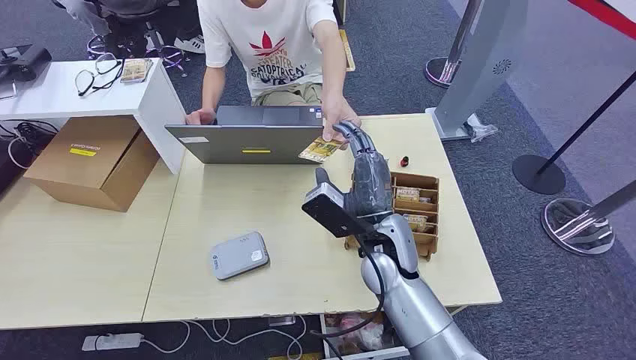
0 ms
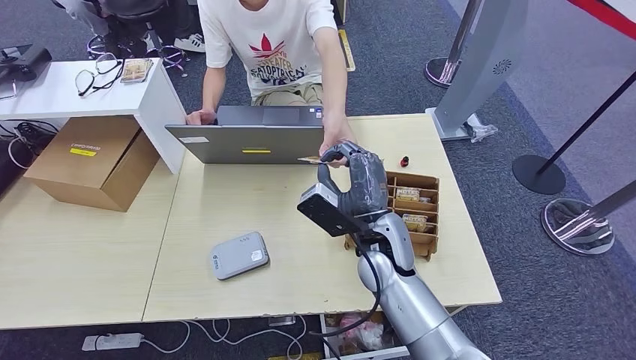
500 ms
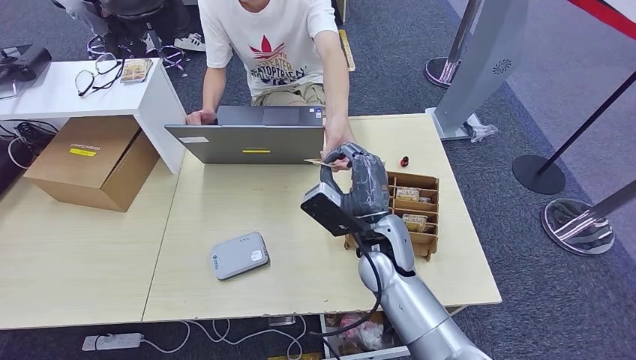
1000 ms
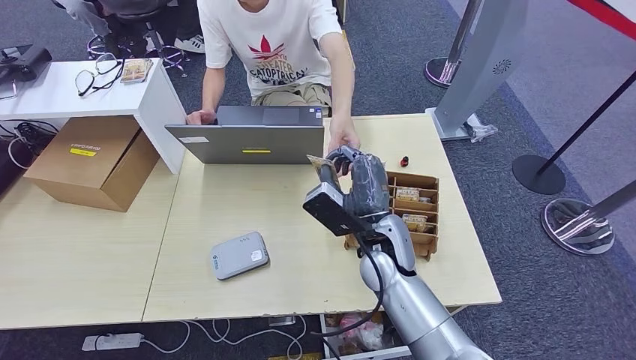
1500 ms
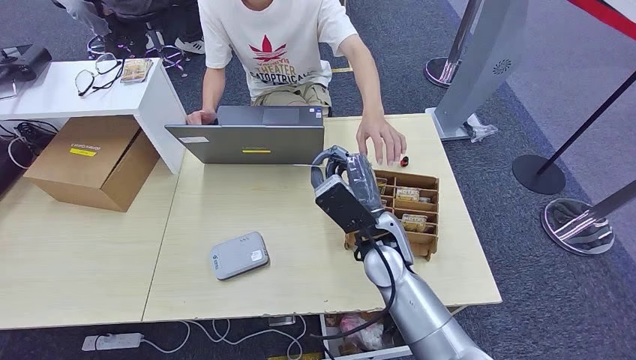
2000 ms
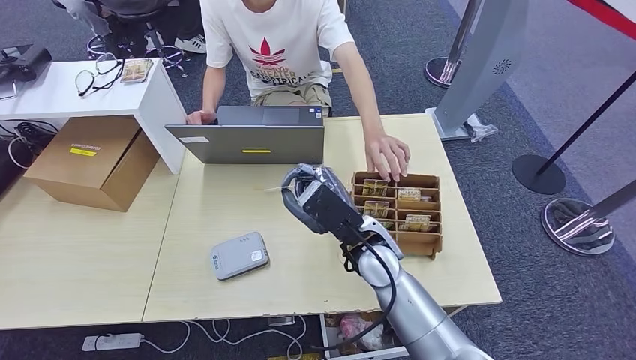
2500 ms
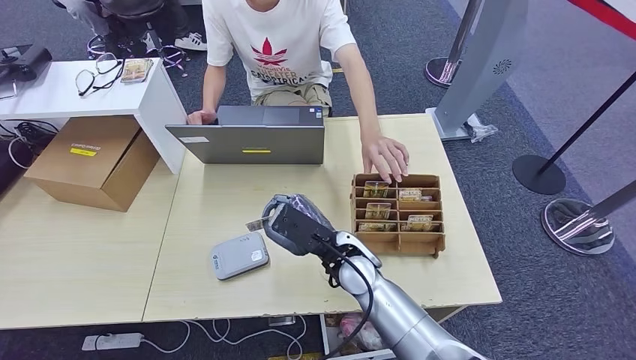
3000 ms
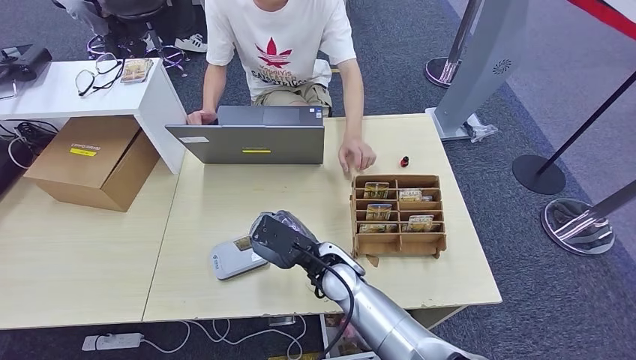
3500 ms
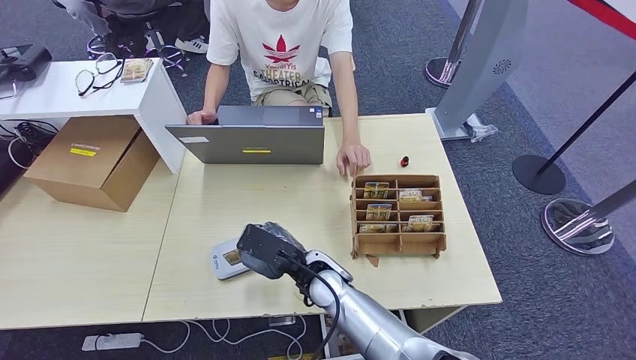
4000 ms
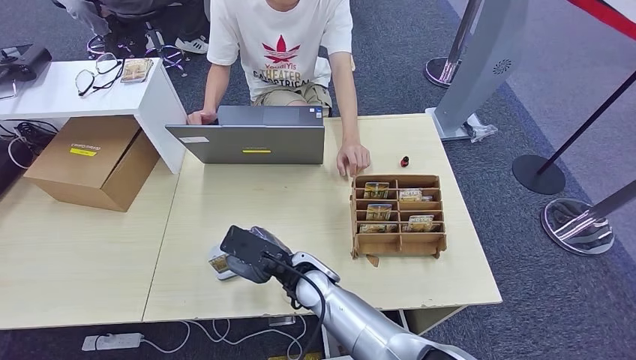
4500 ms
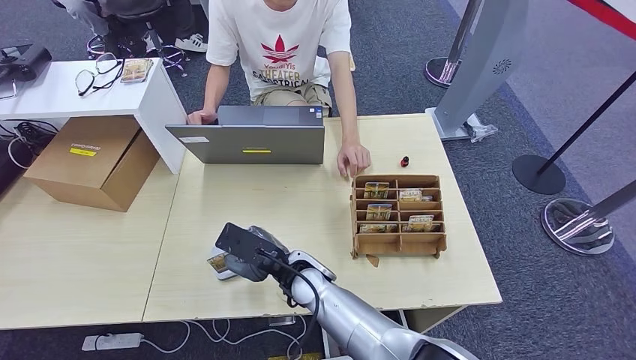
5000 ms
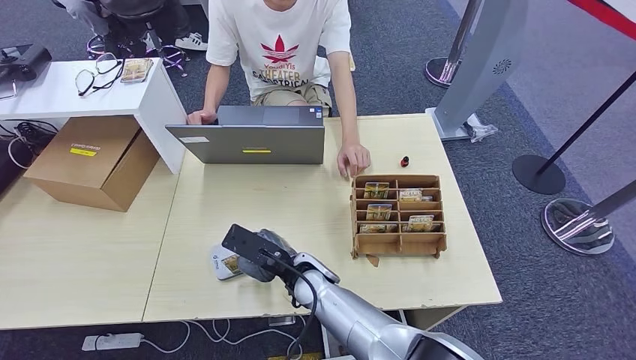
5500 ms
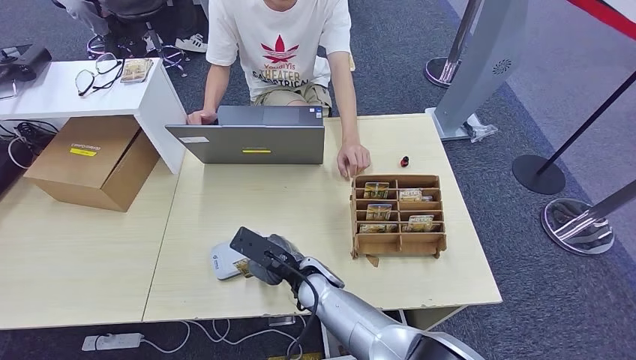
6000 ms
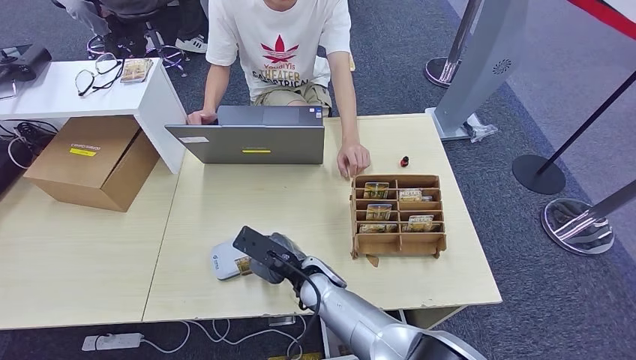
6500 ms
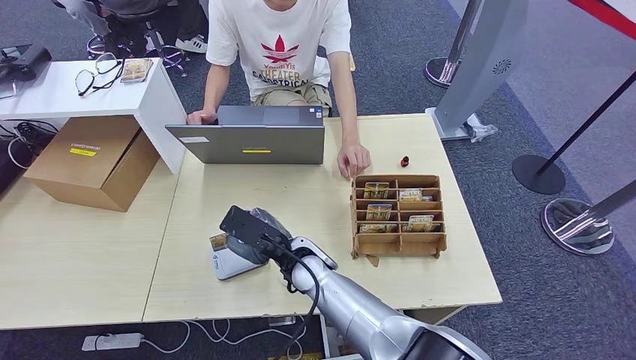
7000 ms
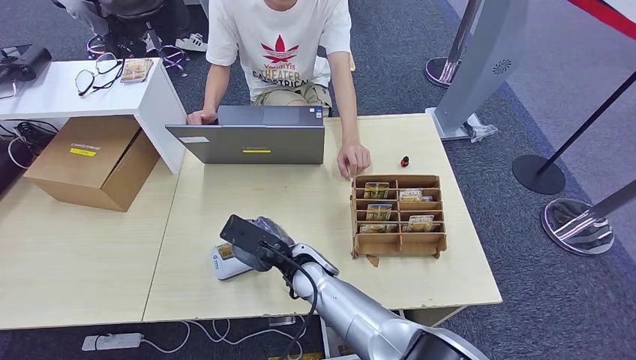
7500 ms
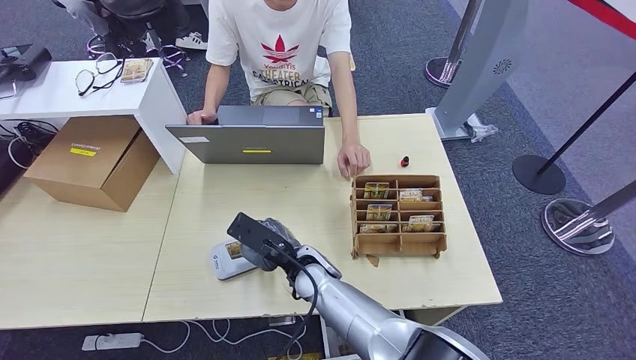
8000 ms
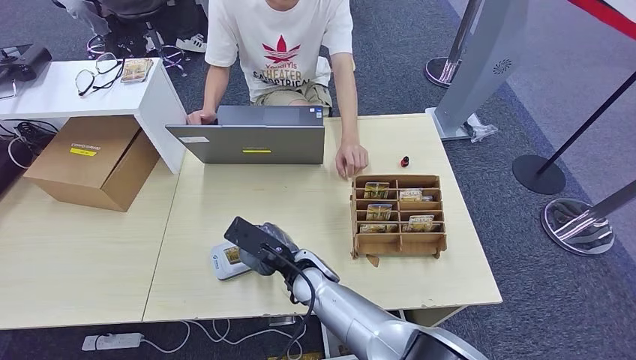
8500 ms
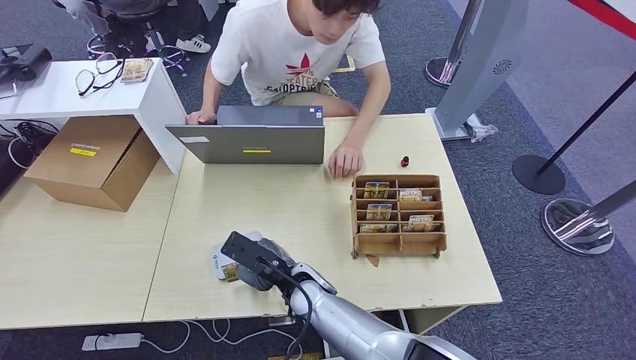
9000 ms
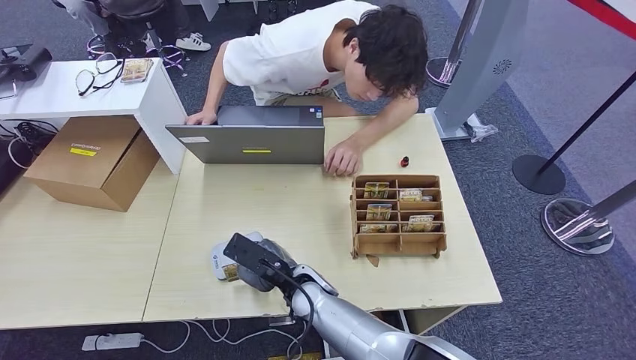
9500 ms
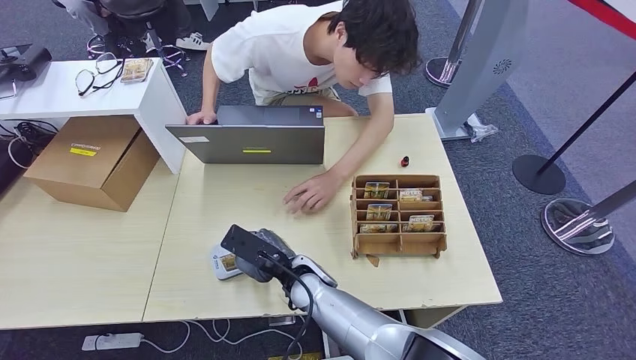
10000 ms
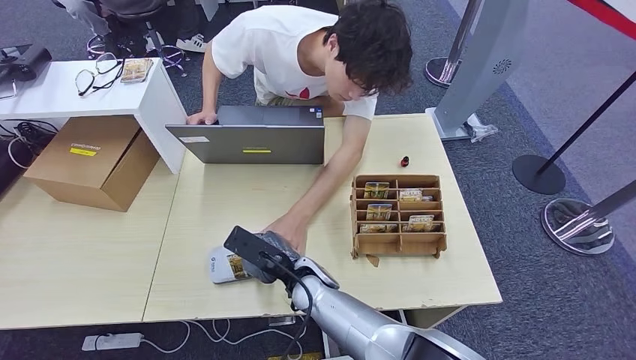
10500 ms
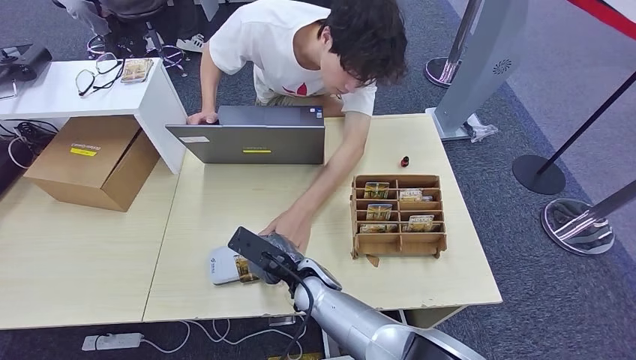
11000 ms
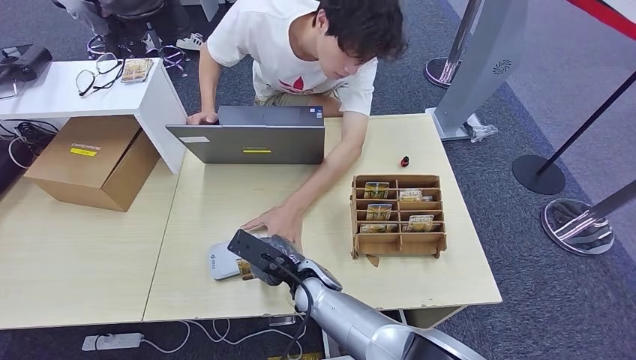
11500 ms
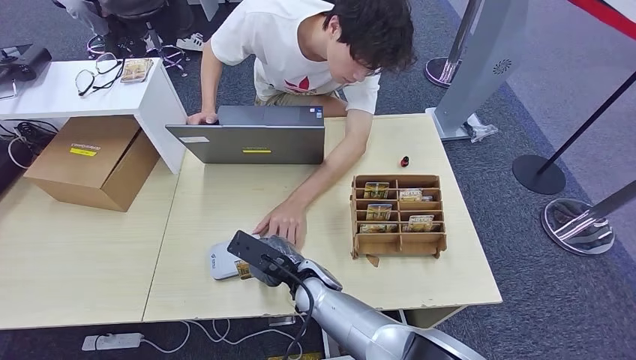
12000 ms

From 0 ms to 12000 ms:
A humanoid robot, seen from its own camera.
Step, from 0 ms to 1500 ms: Take the ID card from the person's hand.
Step, from 2000 ms to 12000 ms: Place the ID card on the card reader.
From 2000 ms to 4000 ms: The right hand moves to the left and downward, approximately 10 cm.
From 4000 ms to 10000 ms: The hands move only a little.
From 10000 ms to 12000 ms: The hands stay close to where they were, moving slightly.

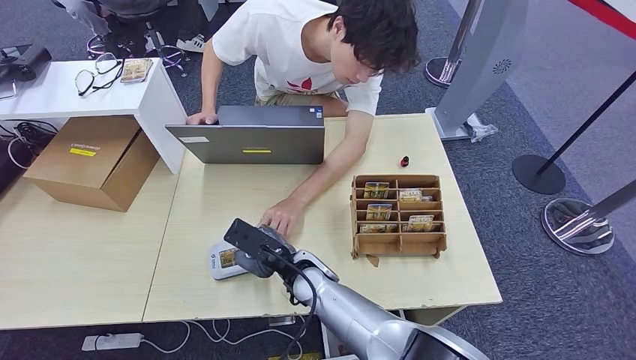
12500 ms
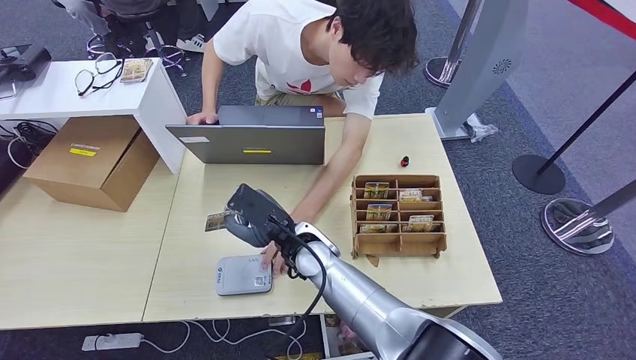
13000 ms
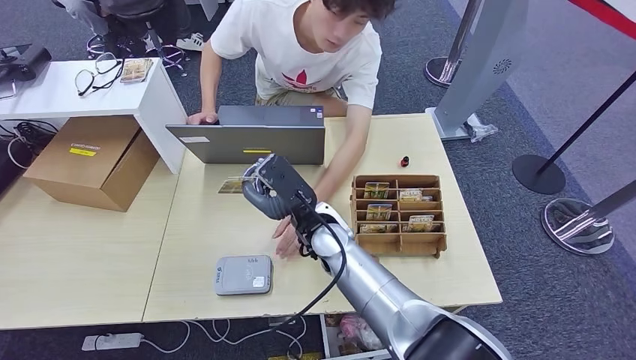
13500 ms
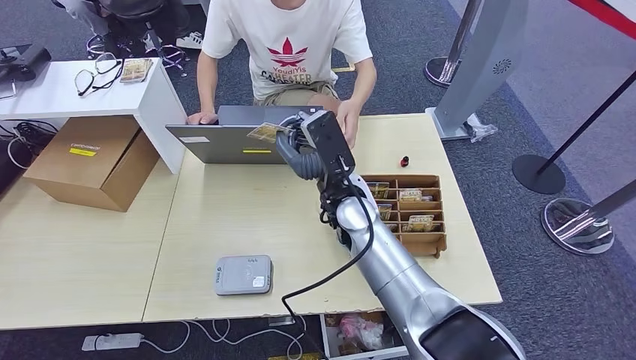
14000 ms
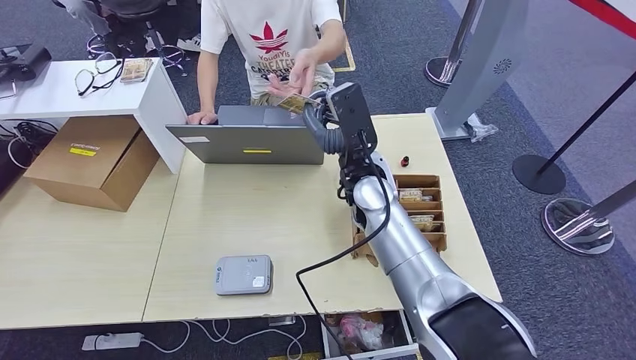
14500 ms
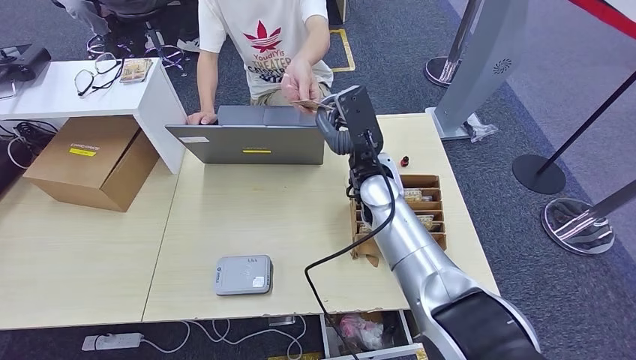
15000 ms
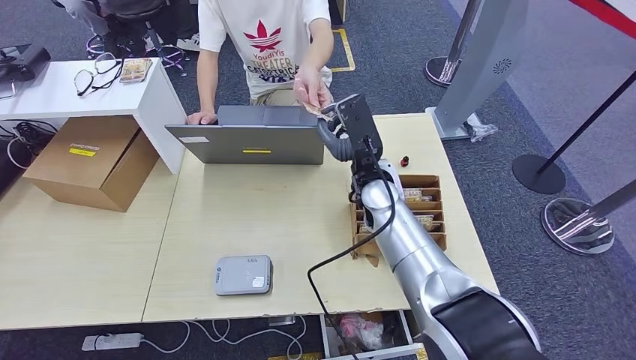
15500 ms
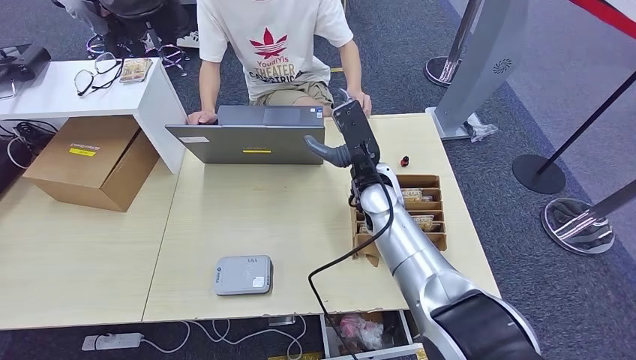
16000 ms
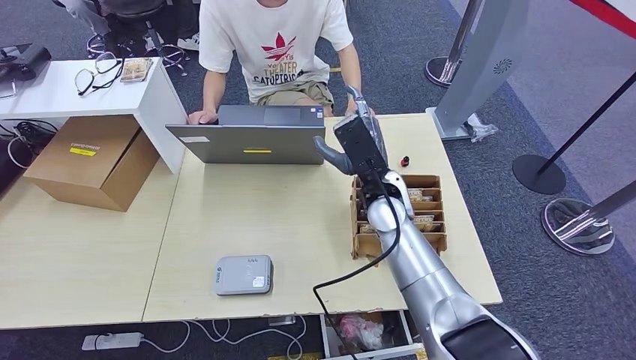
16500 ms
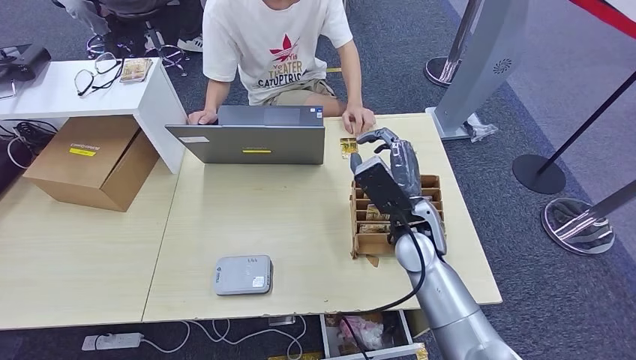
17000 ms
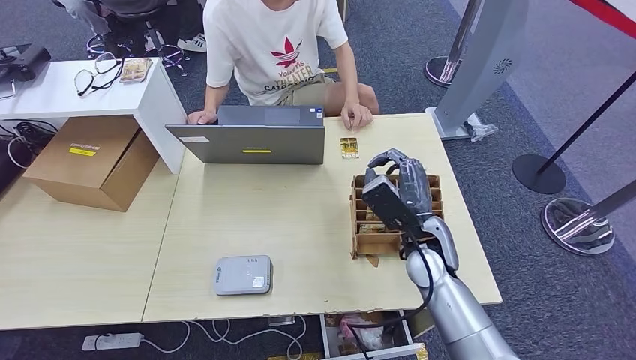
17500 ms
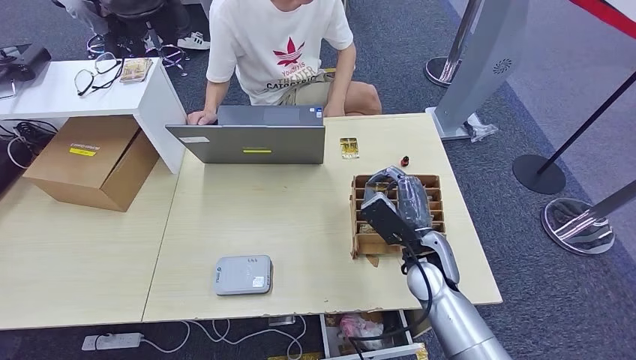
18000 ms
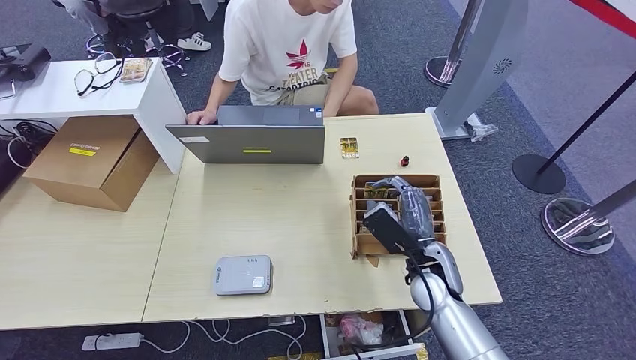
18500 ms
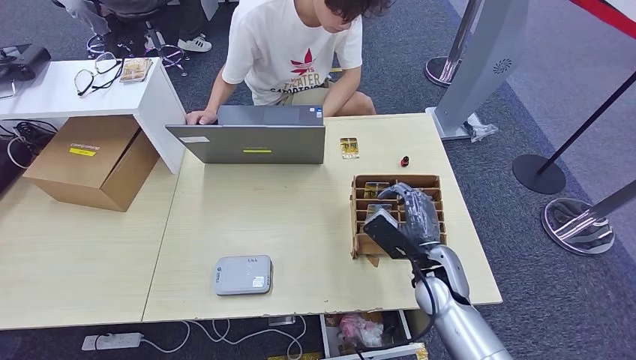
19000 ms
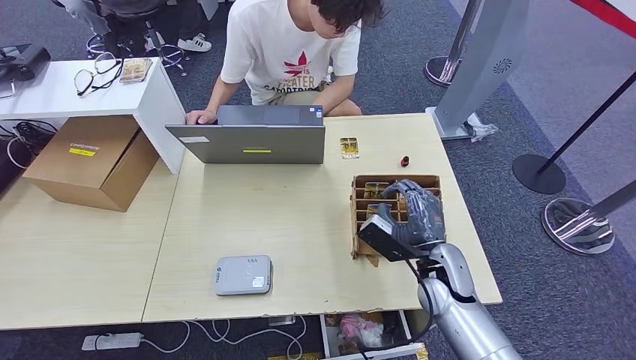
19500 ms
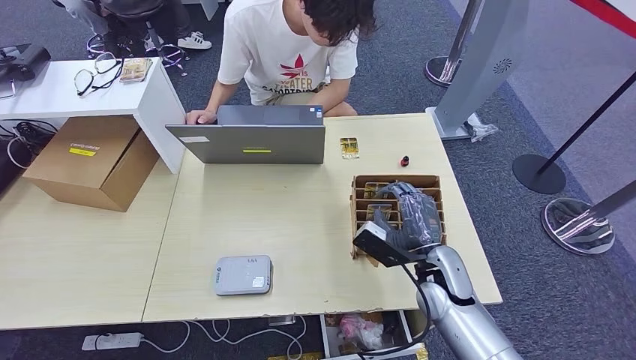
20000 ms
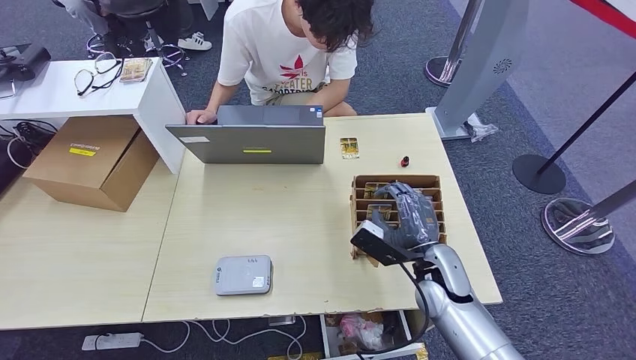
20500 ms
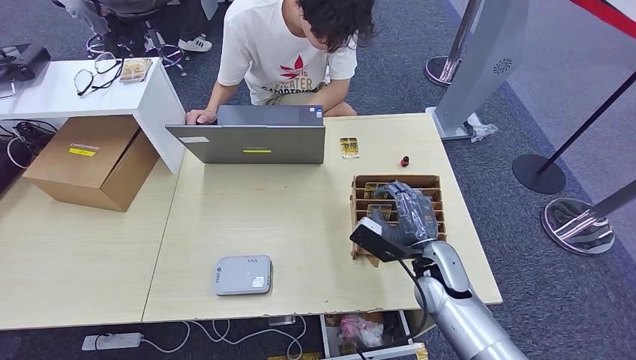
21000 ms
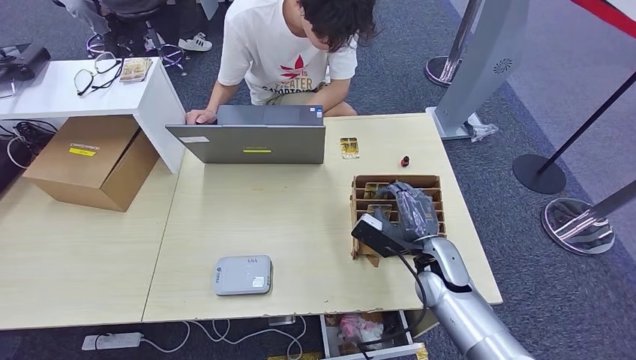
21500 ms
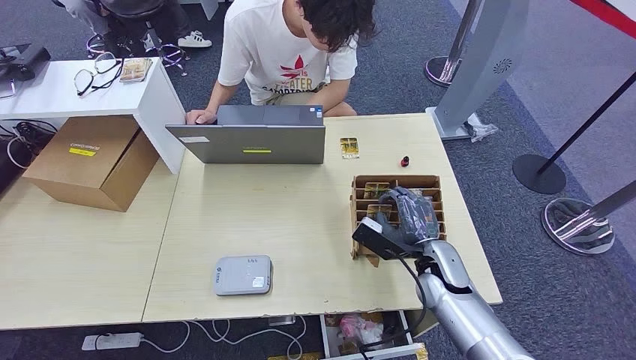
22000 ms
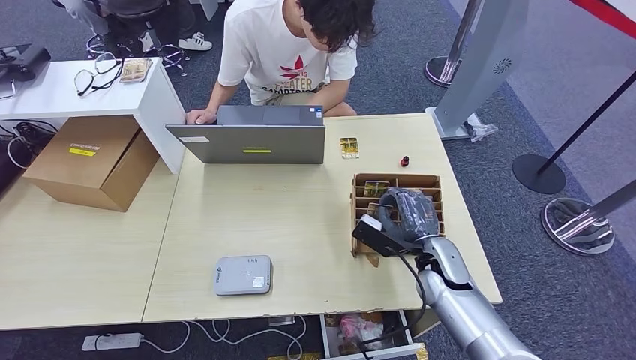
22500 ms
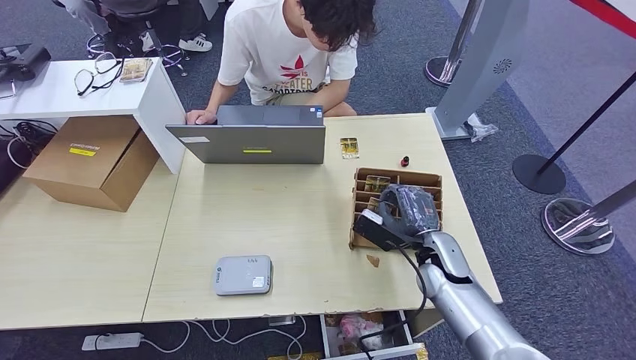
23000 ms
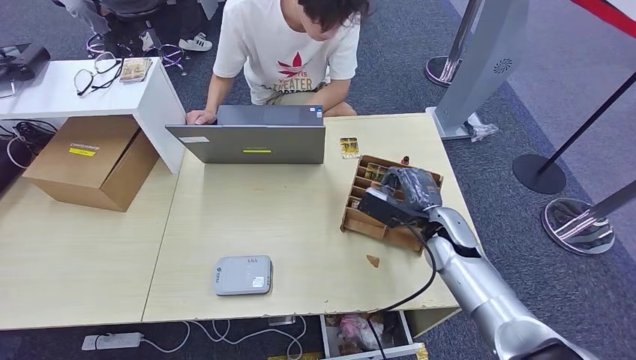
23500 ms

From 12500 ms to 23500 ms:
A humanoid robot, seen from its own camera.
Step, from 12500 ms to 17500 ms: Hand the ID card to the person.
From 14500 ms to 16000 ms: There are only small adjustments of the hands.
From 16000 ms to 18000 ms: The right hand travels backward, to the right and downward by approximately 15 cm.
From 20000 ms to 21500 ms: The hands make only small movements.
From 21500 ms to 23500 ms: The right hand travels forward by some 5 cm.
